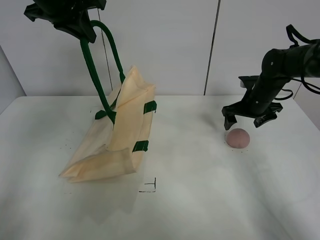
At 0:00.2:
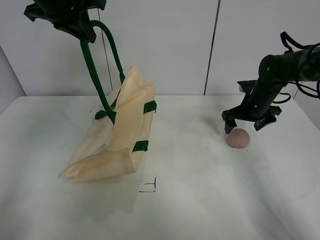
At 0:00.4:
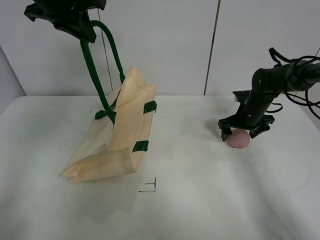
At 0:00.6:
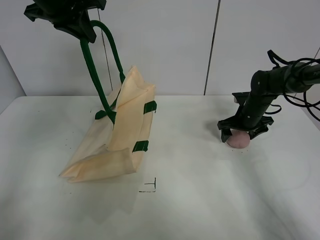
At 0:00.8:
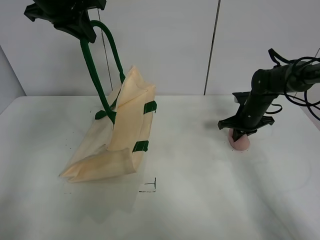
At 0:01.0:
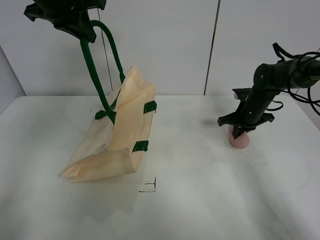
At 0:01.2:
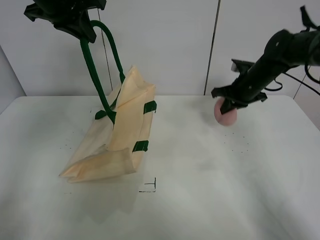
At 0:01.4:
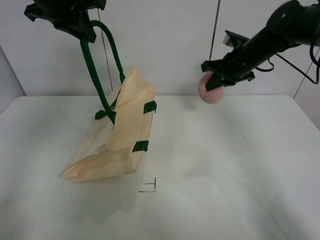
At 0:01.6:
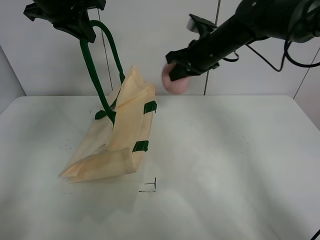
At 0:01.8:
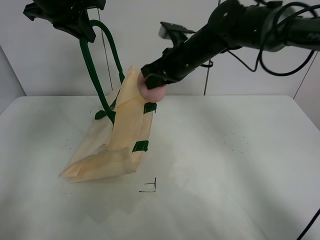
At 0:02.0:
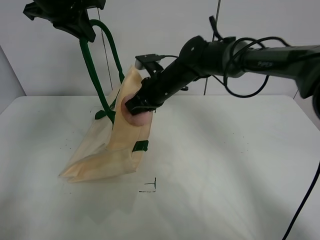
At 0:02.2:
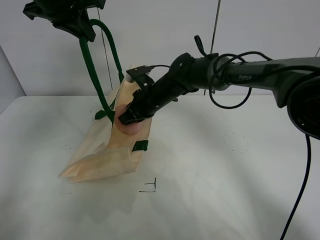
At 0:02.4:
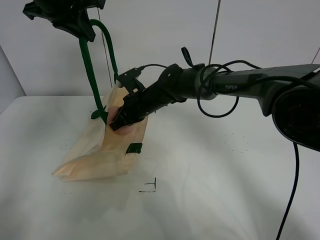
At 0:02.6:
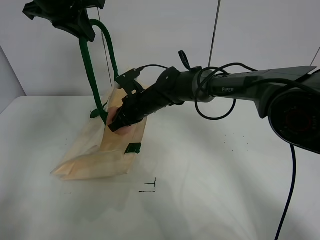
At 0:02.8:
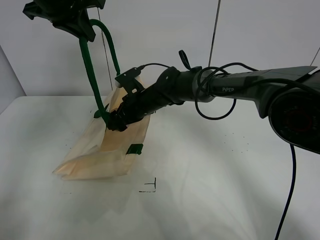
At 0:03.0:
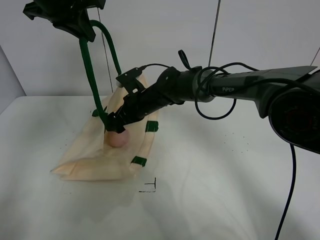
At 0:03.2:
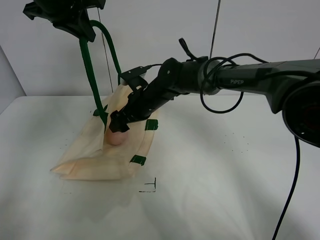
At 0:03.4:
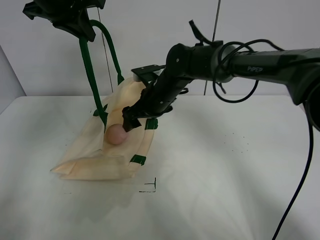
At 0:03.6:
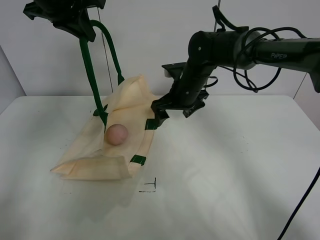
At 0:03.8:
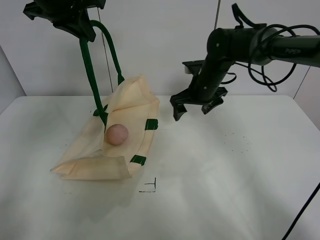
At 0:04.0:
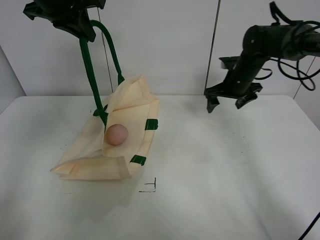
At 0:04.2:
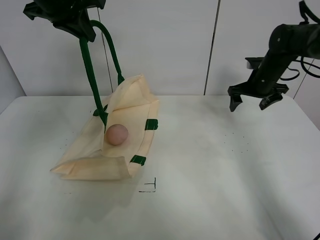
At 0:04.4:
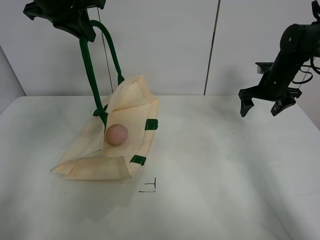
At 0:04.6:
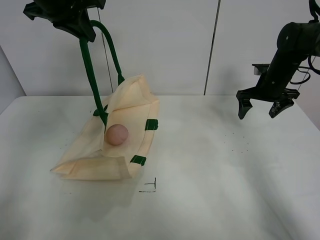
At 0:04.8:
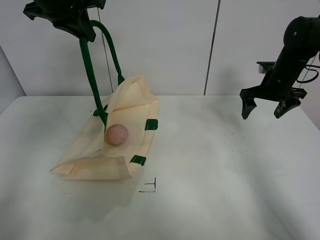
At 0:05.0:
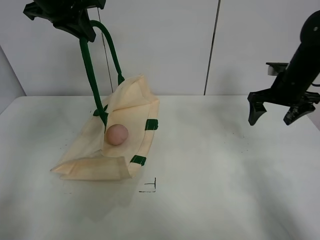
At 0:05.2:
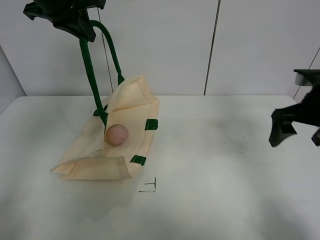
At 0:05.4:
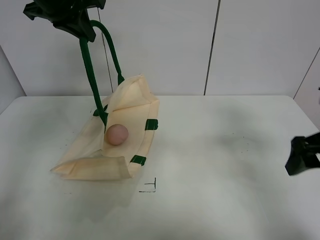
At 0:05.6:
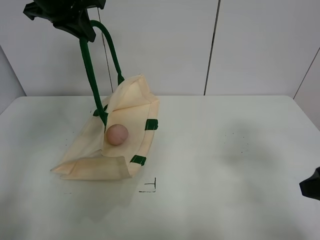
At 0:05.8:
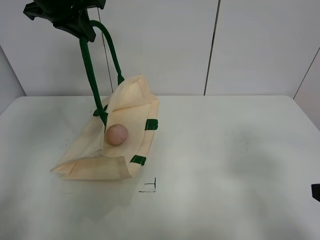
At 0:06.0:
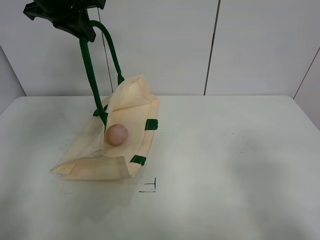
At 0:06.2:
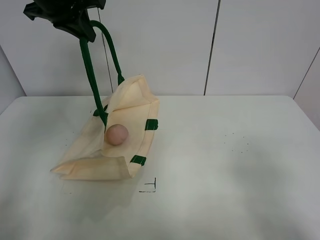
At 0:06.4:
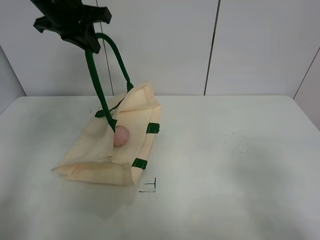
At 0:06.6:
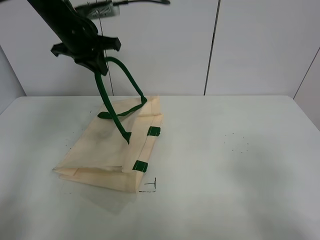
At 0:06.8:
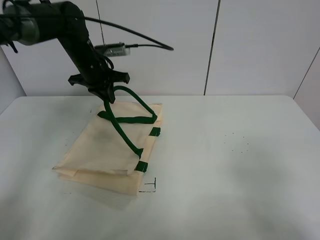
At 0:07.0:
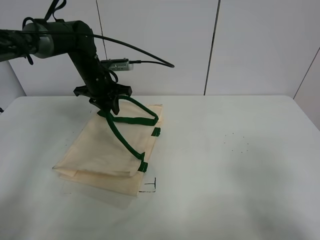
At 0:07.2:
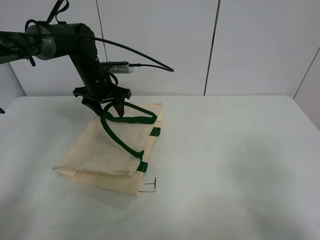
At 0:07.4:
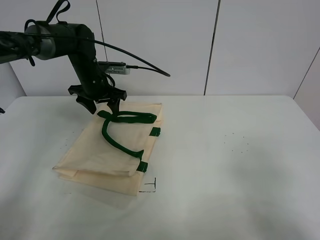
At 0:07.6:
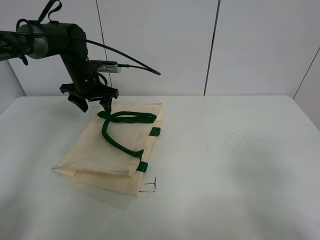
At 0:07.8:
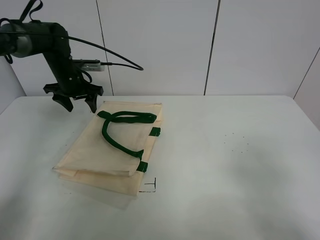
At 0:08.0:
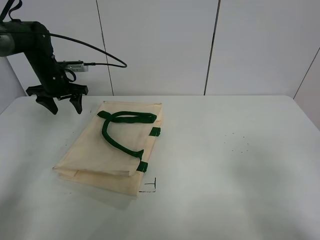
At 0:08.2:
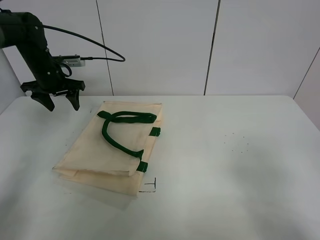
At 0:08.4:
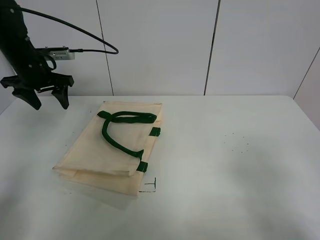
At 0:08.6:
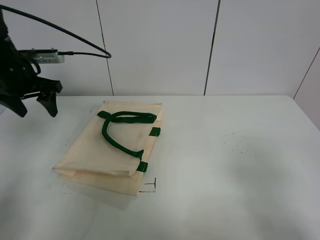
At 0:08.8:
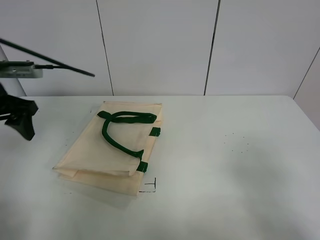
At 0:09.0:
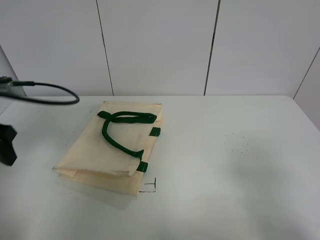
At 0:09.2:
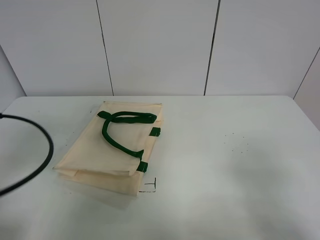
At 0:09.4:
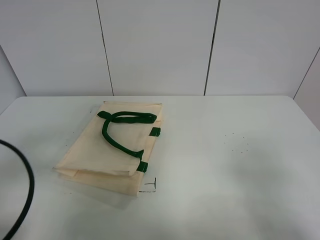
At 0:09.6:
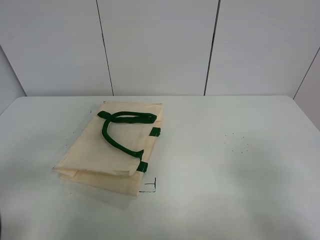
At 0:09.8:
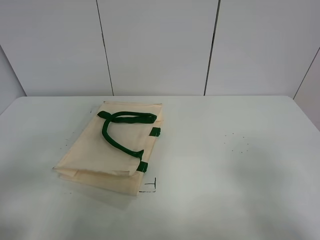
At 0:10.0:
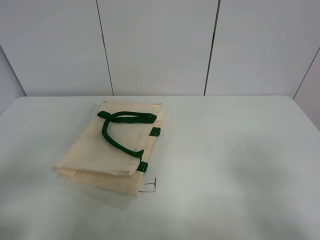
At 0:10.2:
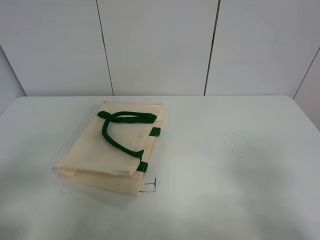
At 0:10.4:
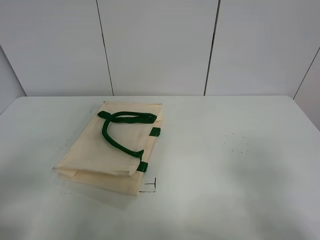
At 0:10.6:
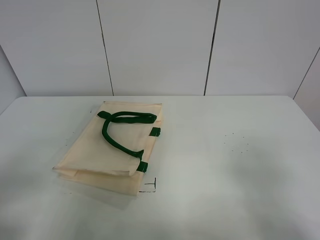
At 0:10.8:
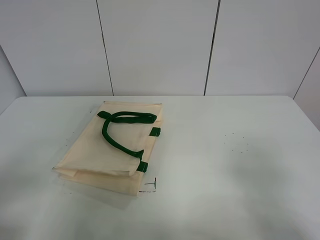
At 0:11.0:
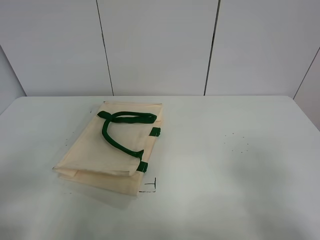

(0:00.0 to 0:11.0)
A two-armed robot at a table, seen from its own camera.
Task of the whole recording: open the white linen bag and put the peach in the bag.
Step, 0:01.2 - 0:03.2: Place the peach in the handbag with right gripper.
Step, 0:03.4 - 0:07.4: Put down the handbag with left gripper.
0:00.0 - 0:01.6: The right gripper goes about 20 cm to the left and upward, and closes.
0:01.6 - 0:03.2: The right gripper is displaced to the left and downward by about 15 cm, and opens.
0:03.2 - 0:04.8: The right gripper travels to the right by about 30 cm.
0:04.8 - 0:06.2: The right gripper heads backward, covering approximately 40 cm.
0:06.2 - 0:07.8: The left gripper heads downward and forward, covering some 25 cm, and opens up.
0:07.8 - 0:09.4: The left gripper heads backward, covering roughly 40 cm.
0:09.4 - 0:11.0: The left gripper heads backward, covering some 10 cm.
